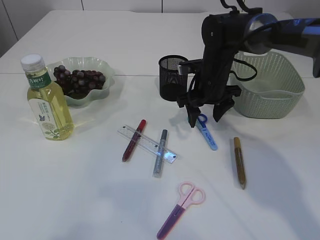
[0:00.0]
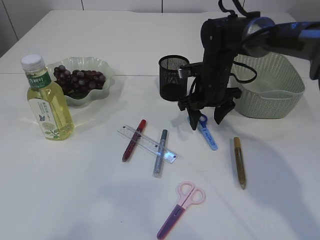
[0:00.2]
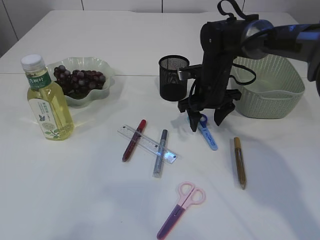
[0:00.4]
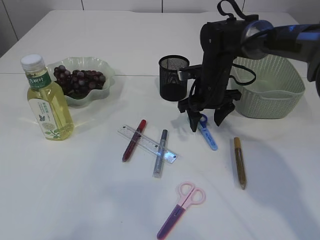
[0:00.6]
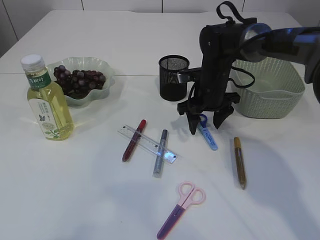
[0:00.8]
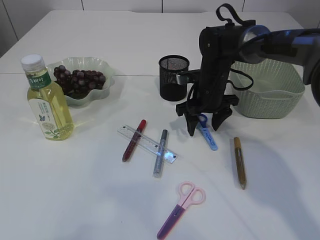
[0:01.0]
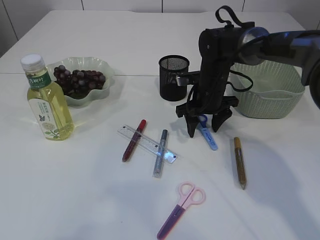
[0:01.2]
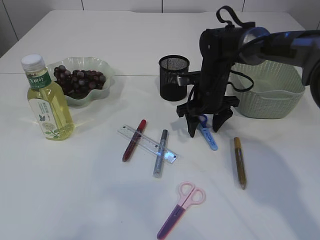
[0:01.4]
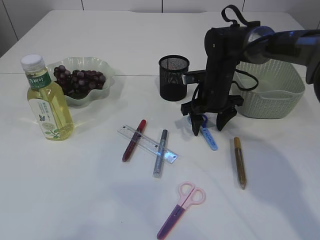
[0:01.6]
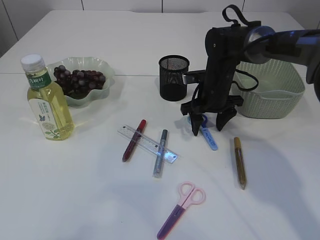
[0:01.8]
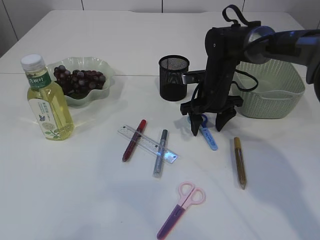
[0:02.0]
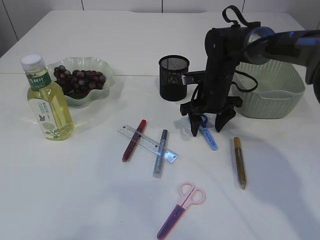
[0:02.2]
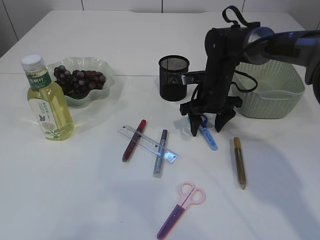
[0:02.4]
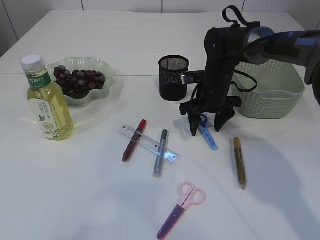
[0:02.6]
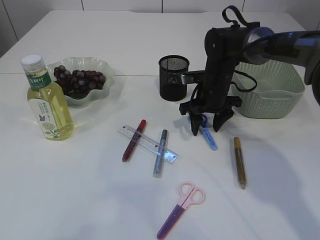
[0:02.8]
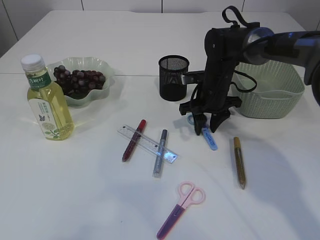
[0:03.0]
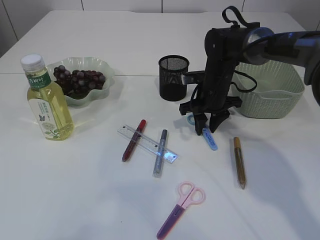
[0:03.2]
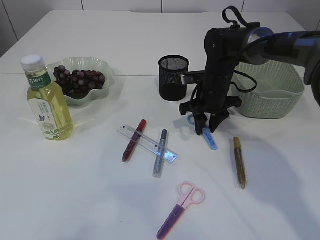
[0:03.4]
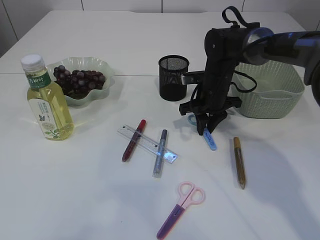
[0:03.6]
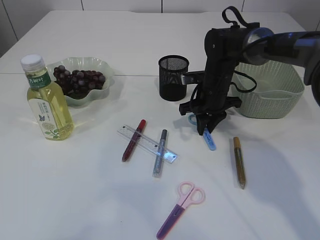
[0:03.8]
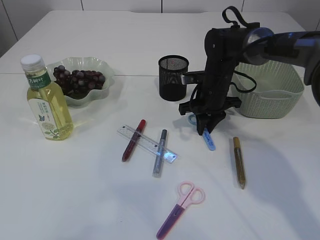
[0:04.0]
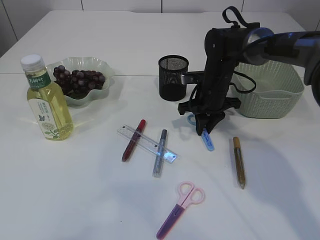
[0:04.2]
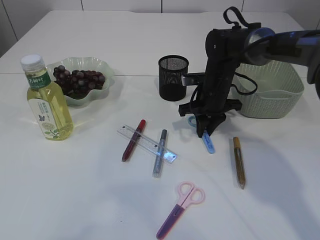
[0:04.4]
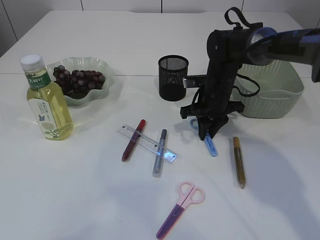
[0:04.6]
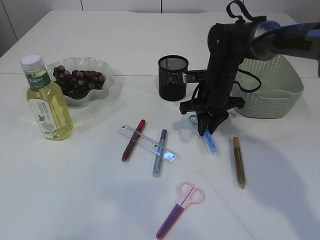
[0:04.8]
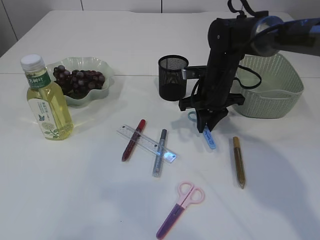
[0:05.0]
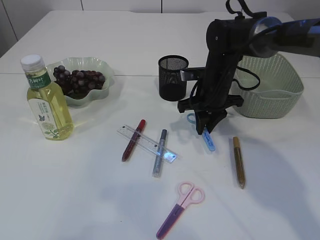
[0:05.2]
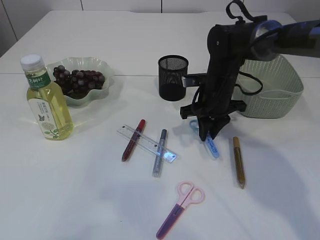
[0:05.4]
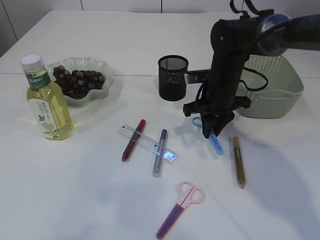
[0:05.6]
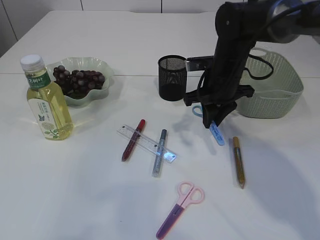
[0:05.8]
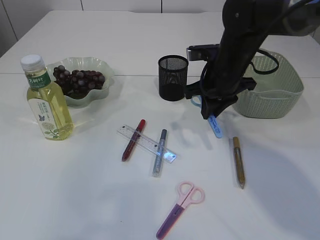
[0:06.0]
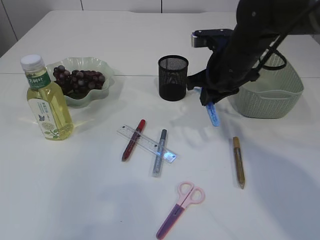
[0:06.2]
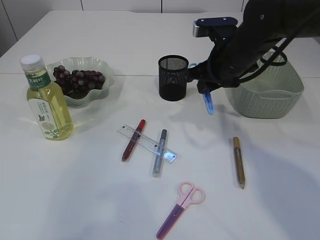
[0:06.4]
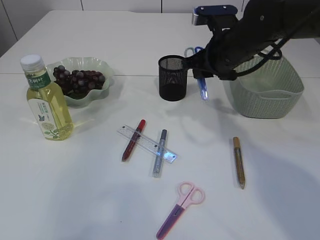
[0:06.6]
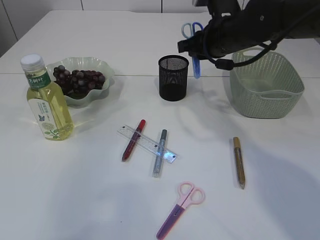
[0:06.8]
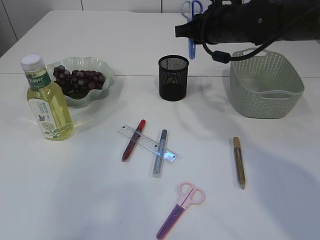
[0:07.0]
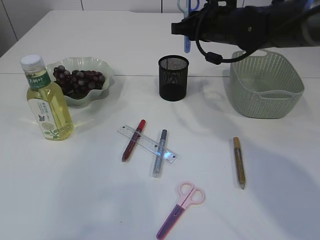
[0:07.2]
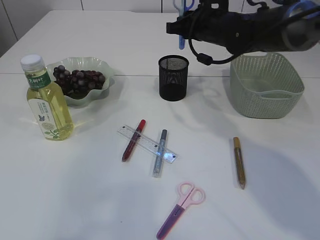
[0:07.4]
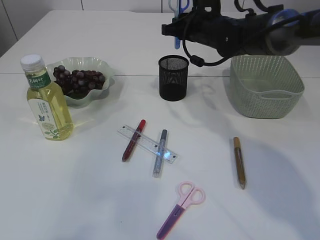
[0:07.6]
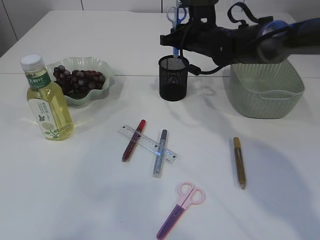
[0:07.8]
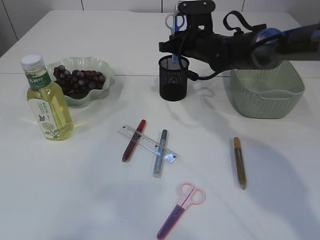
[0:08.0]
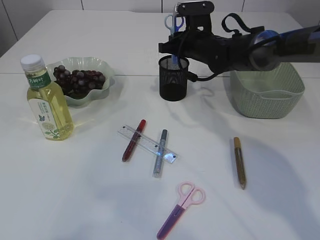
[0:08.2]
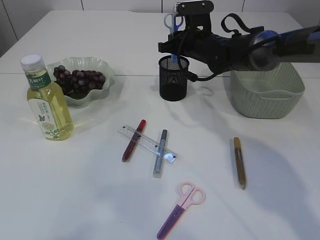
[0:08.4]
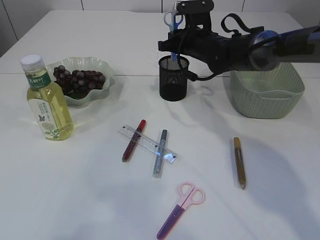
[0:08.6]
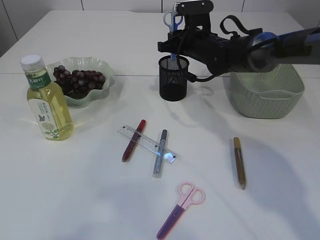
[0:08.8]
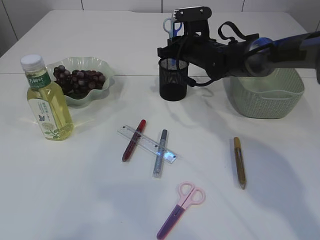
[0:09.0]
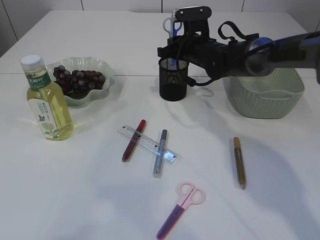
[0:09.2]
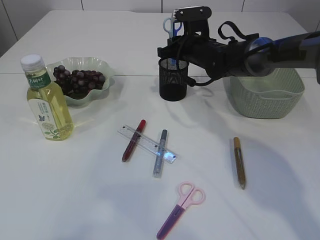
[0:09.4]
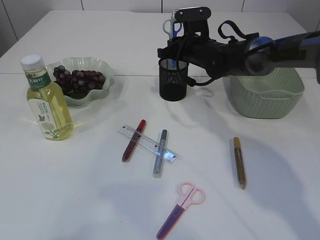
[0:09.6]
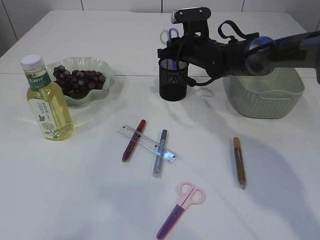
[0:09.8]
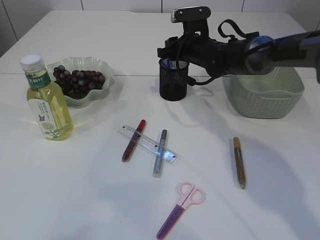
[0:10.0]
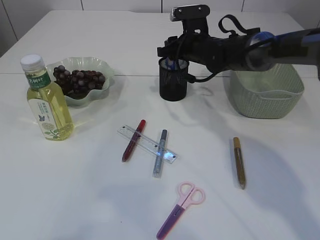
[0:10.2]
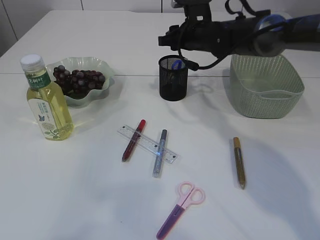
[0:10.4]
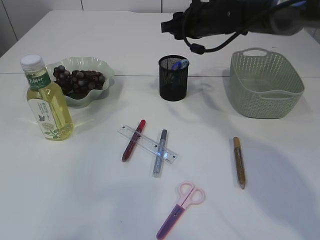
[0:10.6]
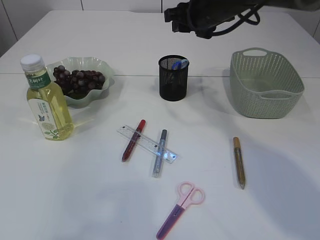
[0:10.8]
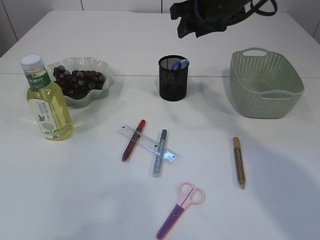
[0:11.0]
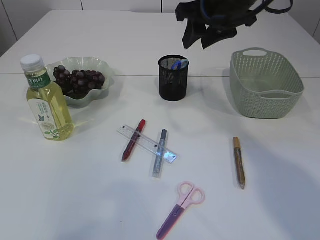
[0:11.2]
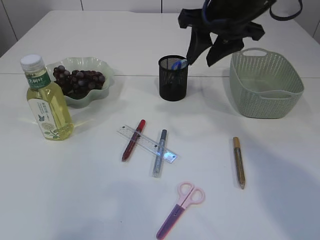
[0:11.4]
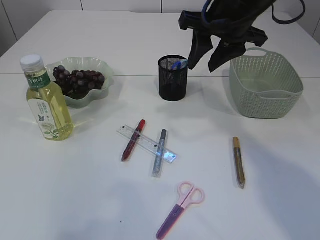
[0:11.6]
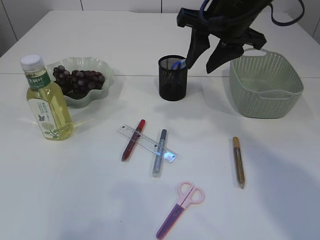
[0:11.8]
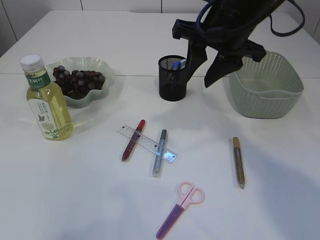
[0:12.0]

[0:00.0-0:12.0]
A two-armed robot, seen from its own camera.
Step, 0:00.0 to 0:05.0: pick up the blue scissors.
Step, 0:05.2 to 0:10.2: Place the blue scissors into the pen holder.
0:00.0 to 0:01.6: The grippers stay close to where they were, moving slightly.
0:01.6 to 0:03.0: The right gripper closes its fingers.
0:03.0 to 0:04.4: The right gripper closes up.
0:04.4 to 0:06.0: The right gripper heads upward, covering about 10 cm.
0:06.0 to 0:07.6: The right gripper goes about 10 cm forward.
0:07.6 to 0:09.0: The right gripper is displaced downward by roughly 5 cm.
0:09.0 to 0:10.4: The right gripper opens.
0:10.4 to 0:12.0: The right gripper travels backward and upward by roughly 20 cm.

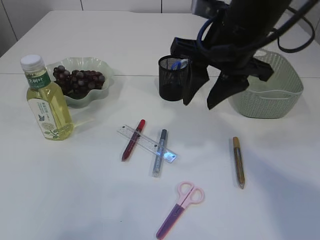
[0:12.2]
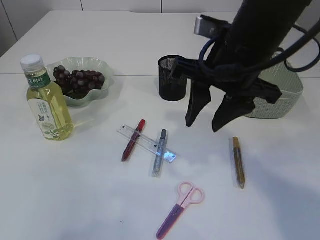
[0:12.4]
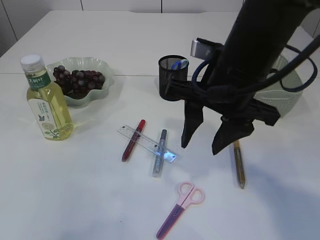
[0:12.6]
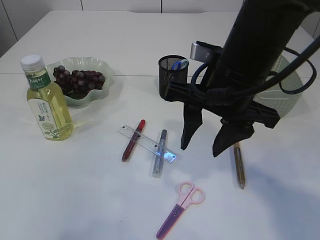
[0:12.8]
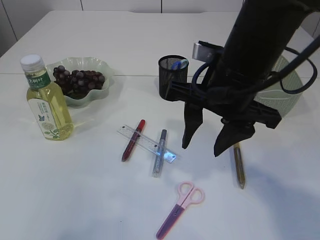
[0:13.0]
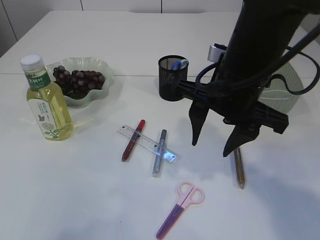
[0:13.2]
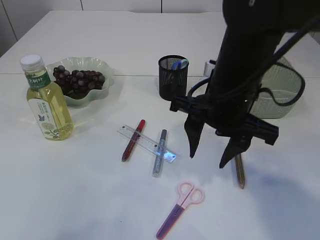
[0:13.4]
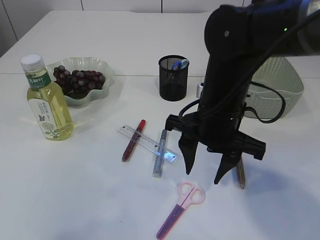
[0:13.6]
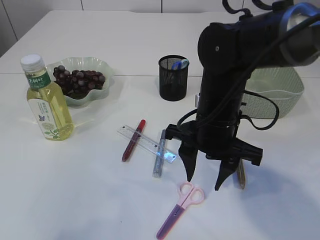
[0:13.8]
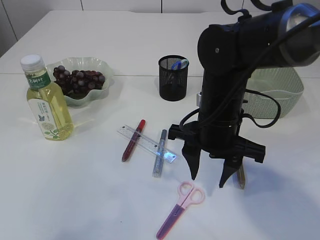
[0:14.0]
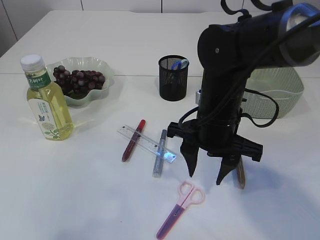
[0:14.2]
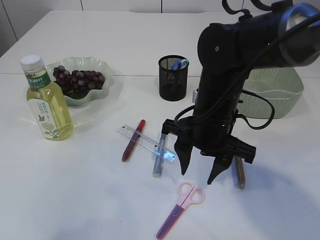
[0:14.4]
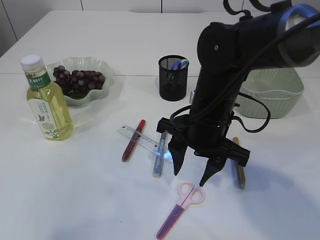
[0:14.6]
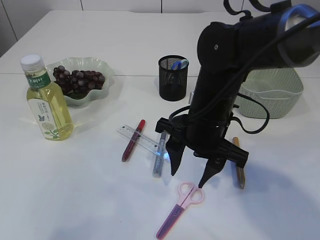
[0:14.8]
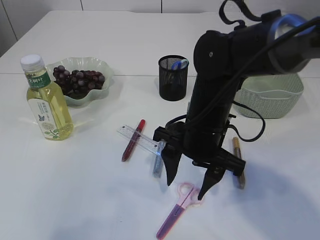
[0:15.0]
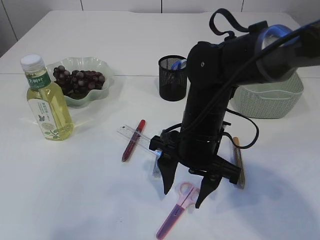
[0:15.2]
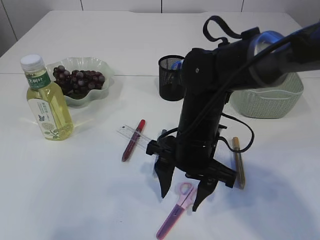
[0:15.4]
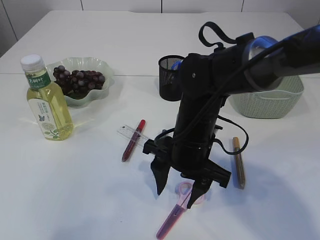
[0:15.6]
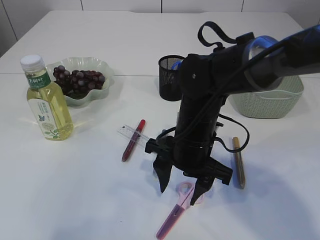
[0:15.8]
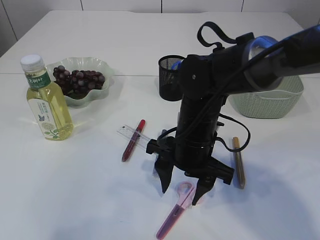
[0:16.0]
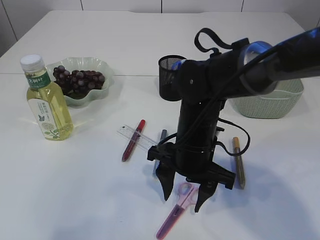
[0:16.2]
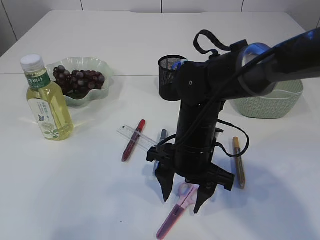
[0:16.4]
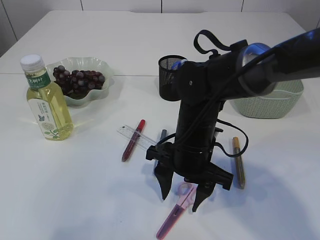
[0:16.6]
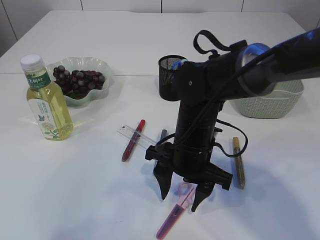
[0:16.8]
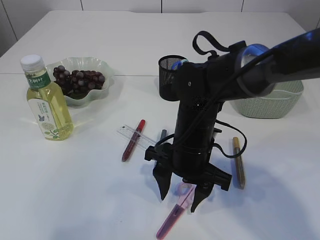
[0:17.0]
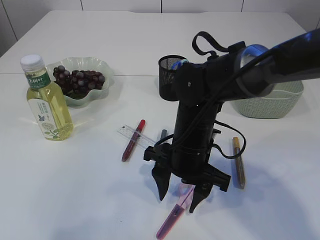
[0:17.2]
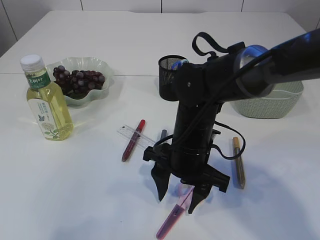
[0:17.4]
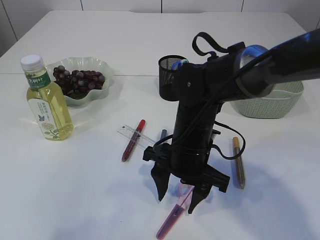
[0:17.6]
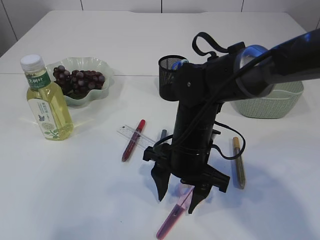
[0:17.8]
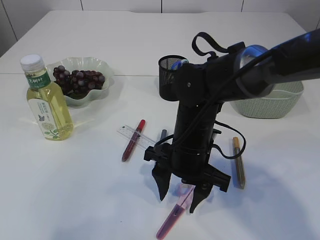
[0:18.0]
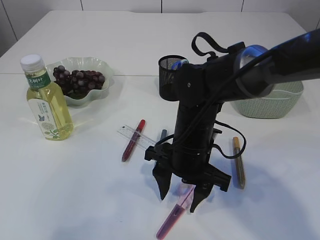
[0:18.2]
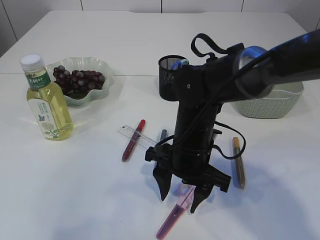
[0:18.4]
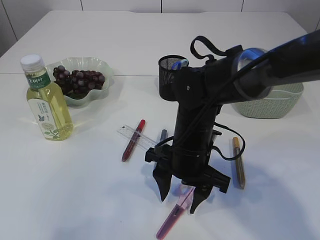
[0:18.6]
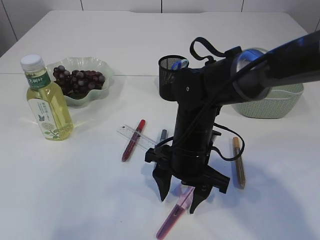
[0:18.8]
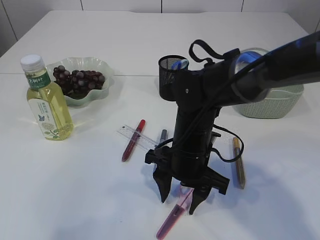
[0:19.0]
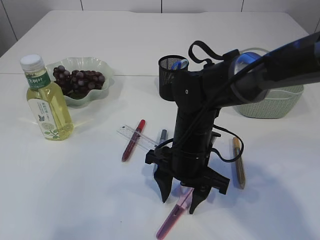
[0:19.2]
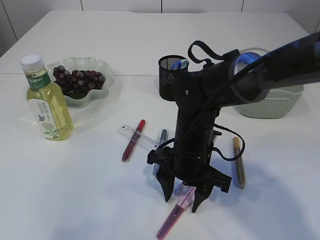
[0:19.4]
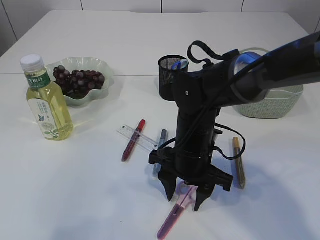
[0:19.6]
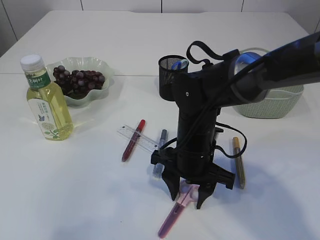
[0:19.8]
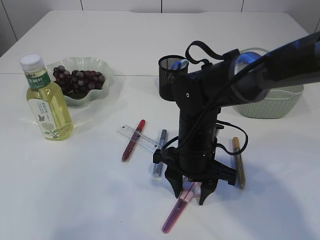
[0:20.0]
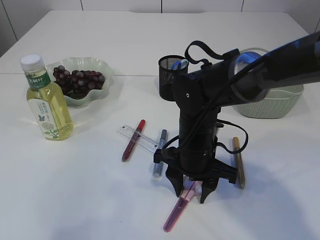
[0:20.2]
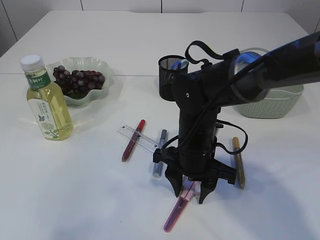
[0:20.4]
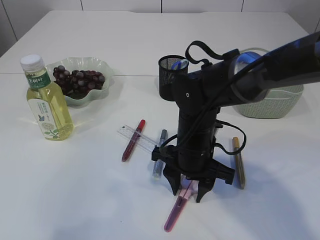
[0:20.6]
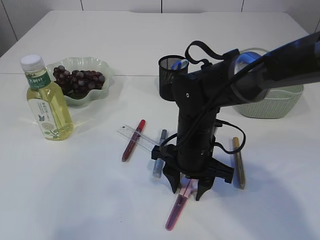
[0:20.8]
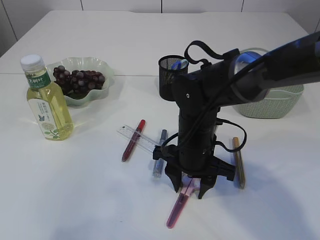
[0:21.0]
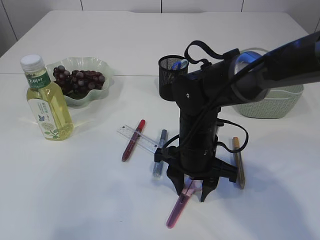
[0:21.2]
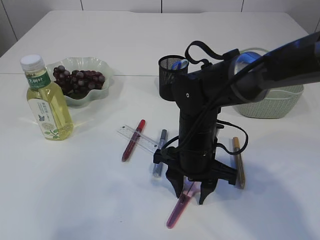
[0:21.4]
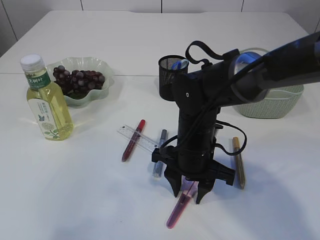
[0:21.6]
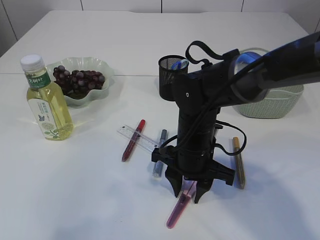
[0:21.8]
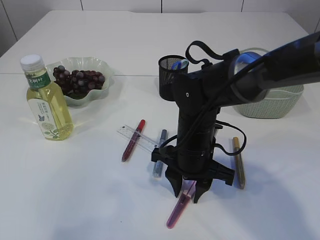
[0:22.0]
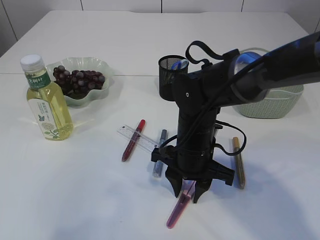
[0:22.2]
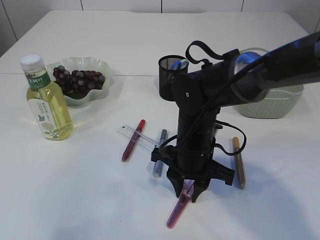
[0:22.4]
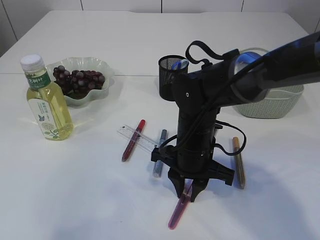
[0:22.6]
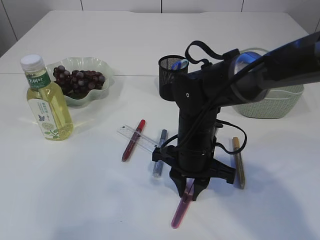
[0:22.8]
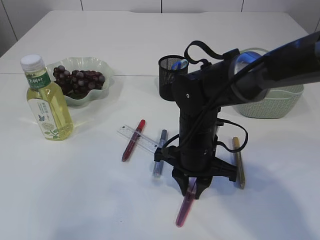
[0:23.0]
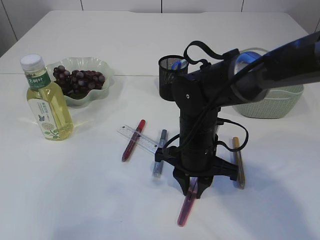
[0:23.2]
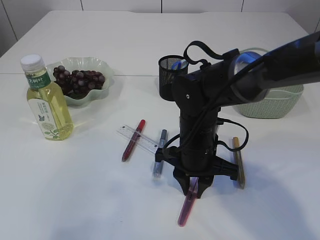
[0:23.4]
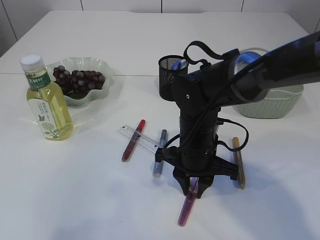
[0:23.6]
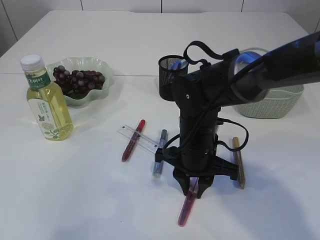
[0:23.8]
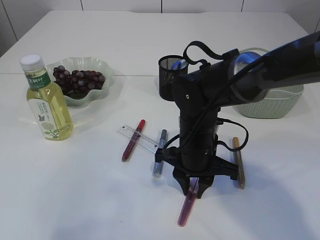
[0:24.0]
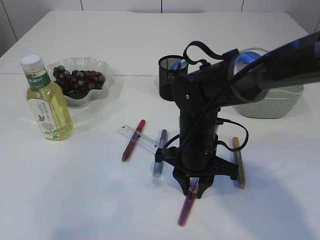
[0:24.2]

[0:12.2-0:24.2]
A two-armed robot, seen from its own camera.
0:12.2 to 0:13.8: The right gripper travels downward by about 10 cm.
0:13.8 to 0:16.6: The grippers stay close to where they were, moving slightly.
0:16.6 to 0:18.2: Neither gripper changes place.
0:18.2 to 0:21.2: The grippers make only small movements.
0:21.2 to 0:22.6: Neither gripper changes place.
0:22.6 to 0:24.2: The grippers move only a little.
